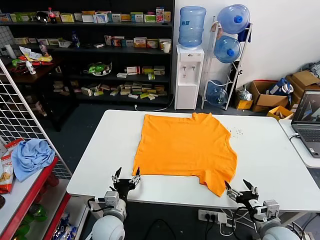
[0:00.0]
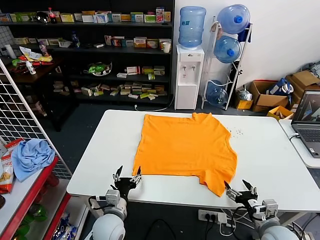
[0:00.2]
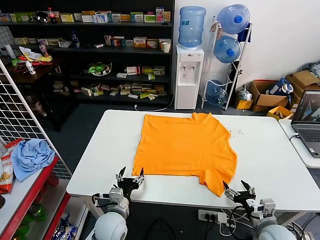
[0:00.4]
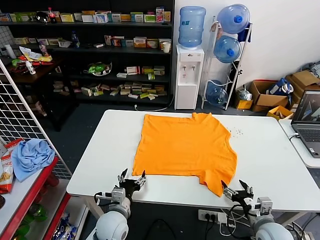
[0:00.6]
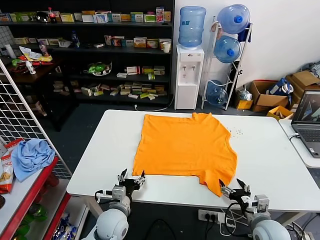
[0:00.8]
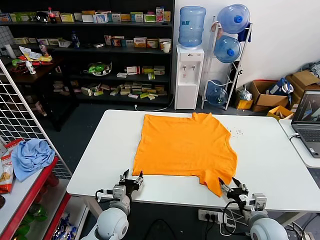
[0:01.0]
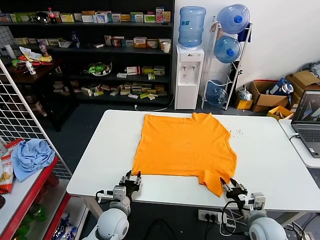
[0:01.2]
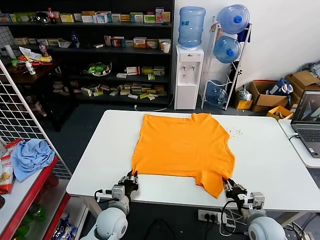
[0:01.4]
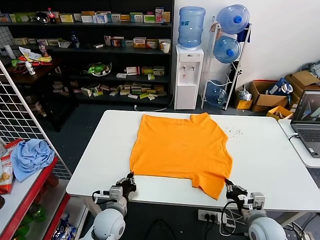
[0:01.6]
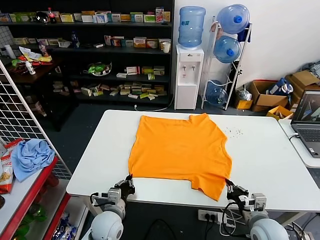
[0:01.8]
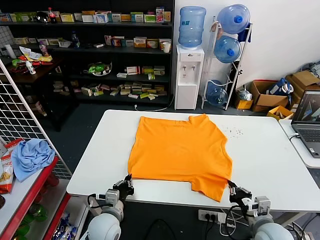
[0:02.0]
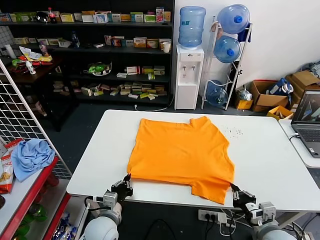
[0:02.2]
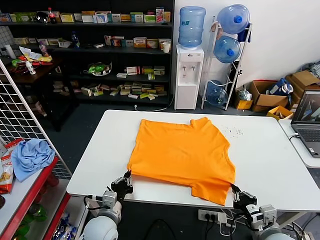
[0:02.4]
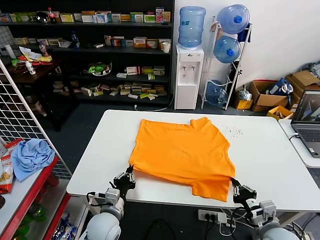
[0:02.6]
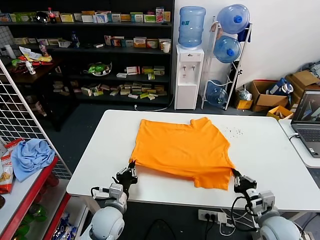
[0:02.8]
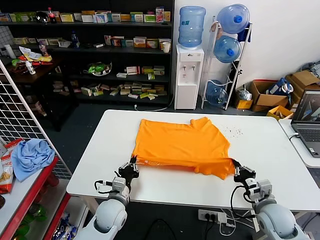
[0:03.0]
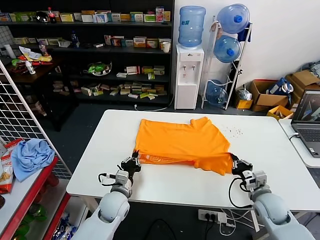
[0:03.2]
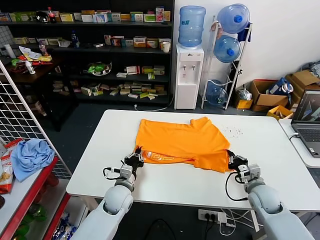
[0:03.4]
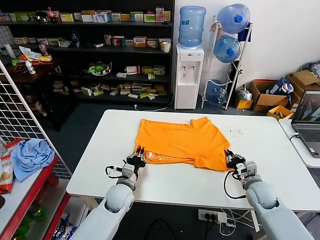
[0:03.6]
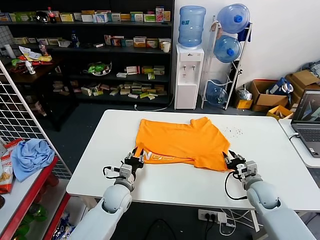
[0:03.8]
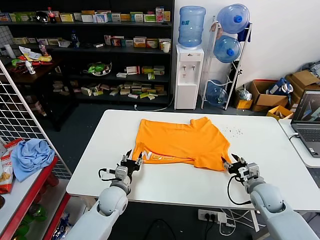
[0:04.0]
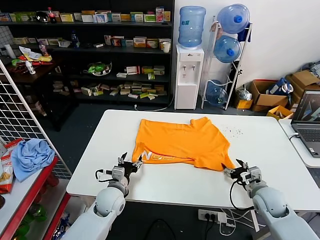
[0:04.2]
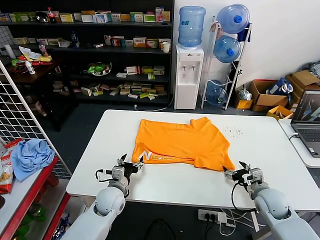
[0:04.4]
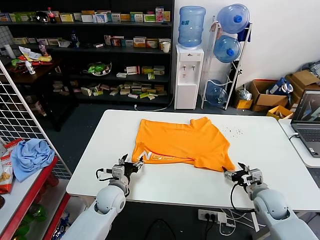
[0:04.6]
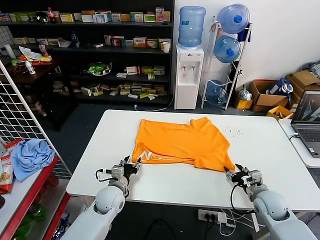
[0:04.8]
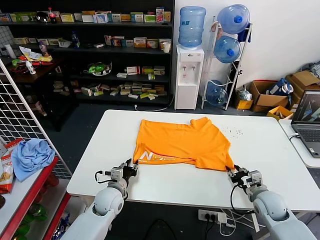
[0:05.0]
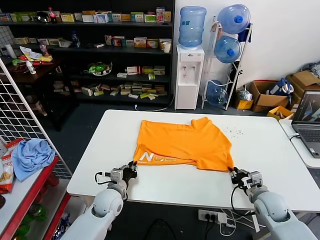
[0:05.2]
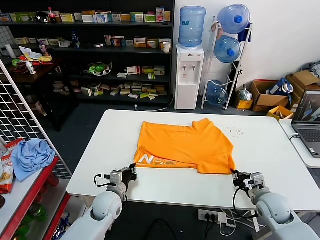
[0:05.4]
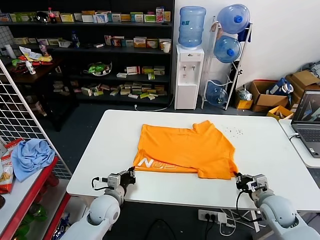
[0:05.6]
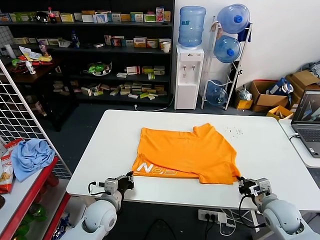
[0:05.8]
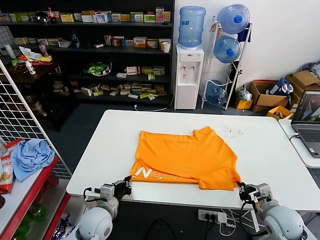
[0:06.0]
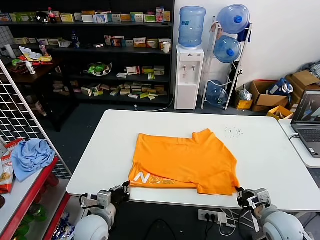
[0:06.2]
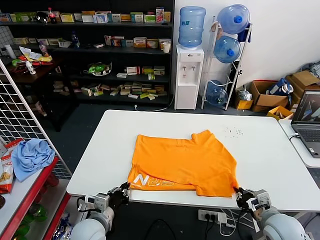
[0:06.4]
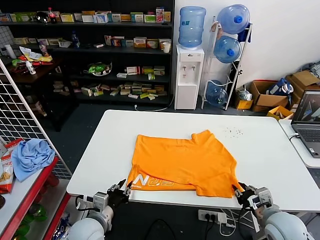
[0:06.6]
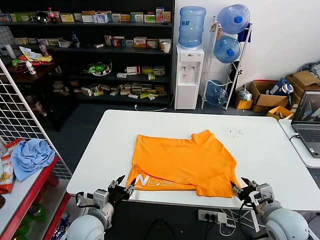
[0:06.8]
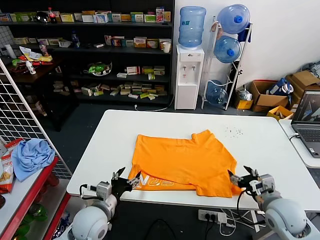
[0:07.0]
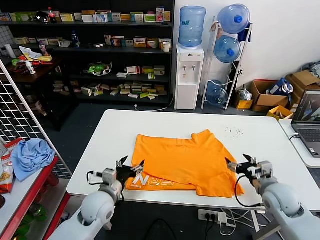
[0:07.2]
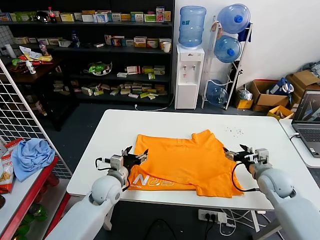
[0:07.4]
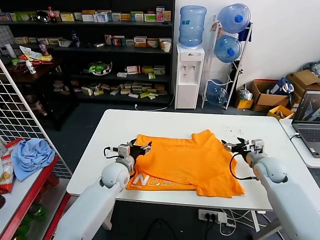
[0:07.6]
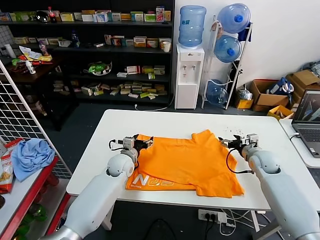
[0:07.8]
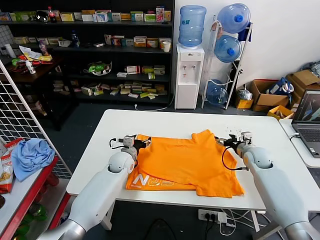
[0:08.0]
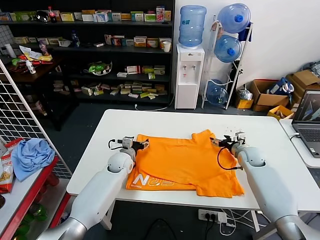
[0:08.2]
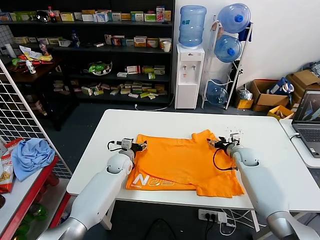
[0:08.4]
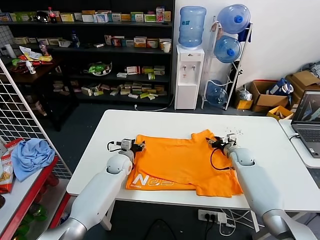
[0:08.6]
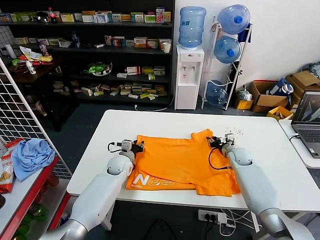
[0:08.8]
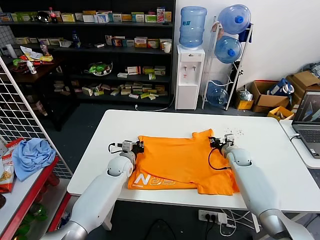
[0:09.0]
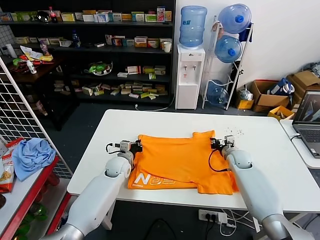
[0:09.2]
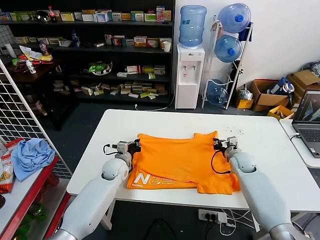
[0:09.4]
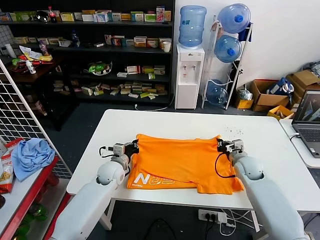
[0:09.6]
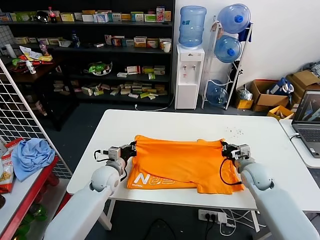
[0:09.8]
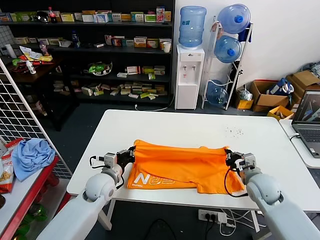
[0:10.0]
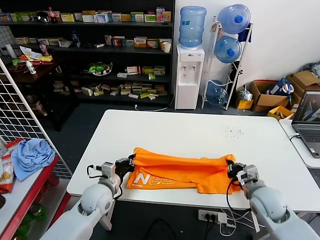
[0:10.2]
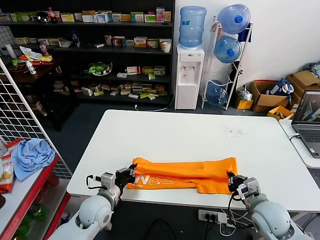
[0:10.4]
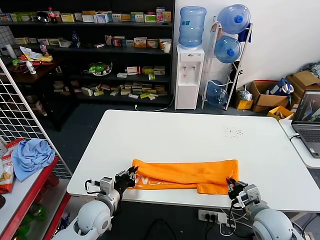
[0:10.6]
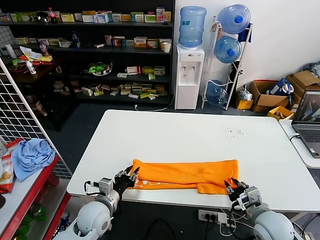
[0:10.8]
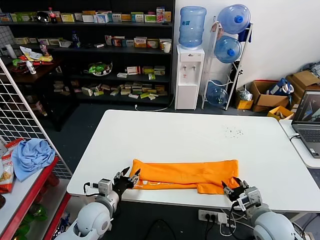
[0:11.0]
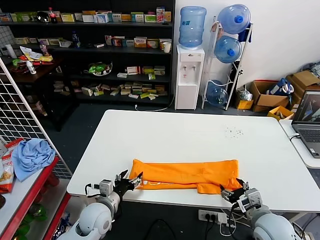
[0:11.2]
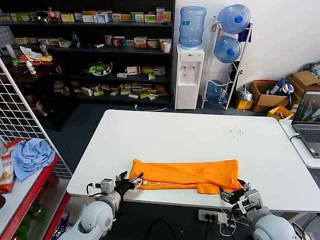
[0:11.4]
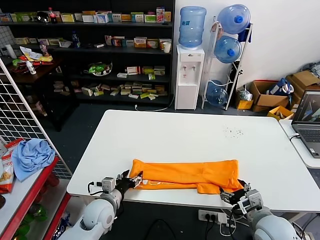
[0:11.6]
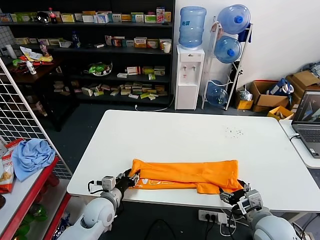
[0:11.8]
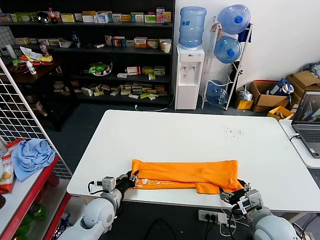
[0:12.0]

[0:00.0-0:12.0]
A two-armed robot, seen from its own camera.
Task of the whole recording: fold and organize the clothes.
Step, 0:00.0 to 0:01.8: use both grippers simultaneously to clamp the lower edge of the clothing fabric.
Step, 0:02.0 to 0:03.8: use both grippers to drag the lower edge of the fabric forward and fold it over the upper edge.
Step, 0:04.0 to 0:06.6: Drag the clothes downward with both gripper.
Step, 0:06.8 to 0:09.0: use both grippers simultaneously to clamp the upper edge of the clothing fabric.
Step, 0:09.2 to 0:11.0: use both grippers to drag the upper edge of the fabric backward and fold it over the lower edge.
0:01.6 to 0:03.0: The right gripper moves some 5 cm.
0:03.0 to 0:04.4: The right gripper opens; the left gripper opens.
0:04.4 to 0:06.0: Both grippers travel together backward, some 5 cm. The left gripper closes up. The right gripper closes up.
0:06.0 to 0:07.6: Both grippers travel together forward, roughly 15 cm. The right gripper opens. The left gripper opens up.
0:07.6 to 0:09.0: The left gripper is displaced forward and downward by roughly 10 cm, and closes up; the right gripper goes about 15 cm forward, downward and to the left, and closes its fingers.
0:09.0 to 0:10.4: The grippers both shift backward by about 20 cm.
0:10.4 to 0:12.0: The right gripper moves about 5 cm, and opens up. The left gripper opens its fingers.

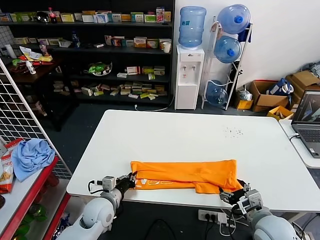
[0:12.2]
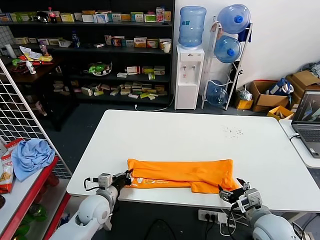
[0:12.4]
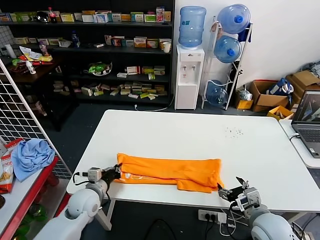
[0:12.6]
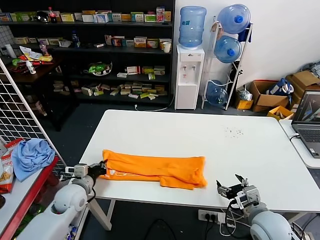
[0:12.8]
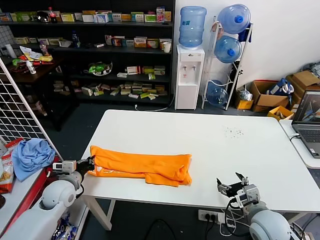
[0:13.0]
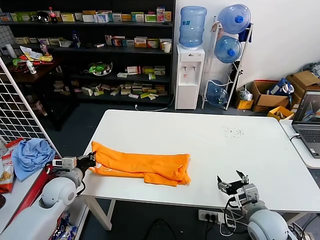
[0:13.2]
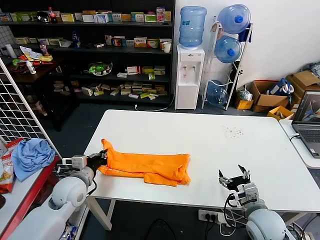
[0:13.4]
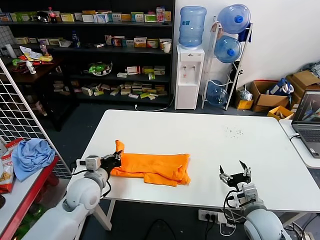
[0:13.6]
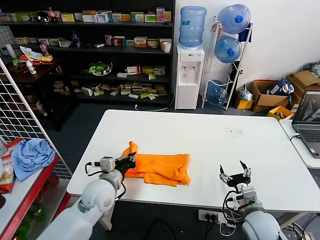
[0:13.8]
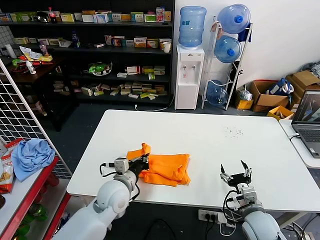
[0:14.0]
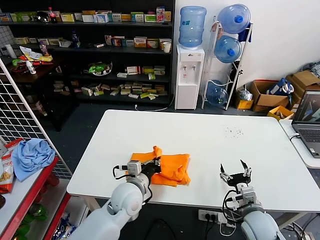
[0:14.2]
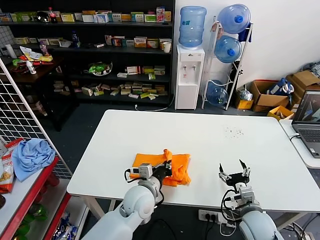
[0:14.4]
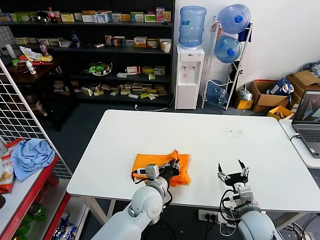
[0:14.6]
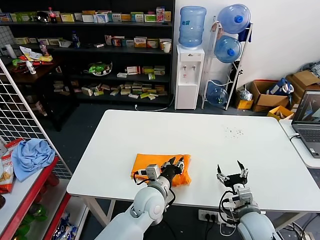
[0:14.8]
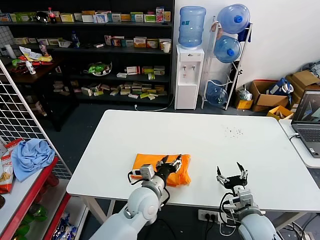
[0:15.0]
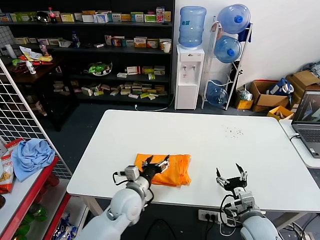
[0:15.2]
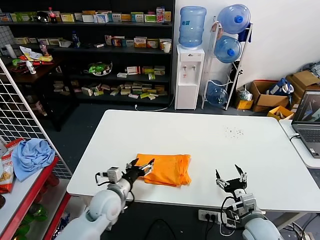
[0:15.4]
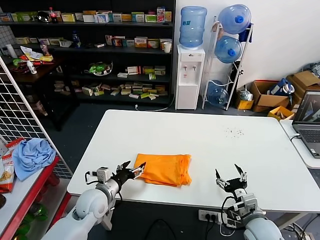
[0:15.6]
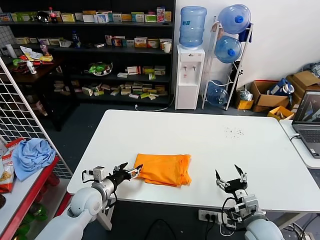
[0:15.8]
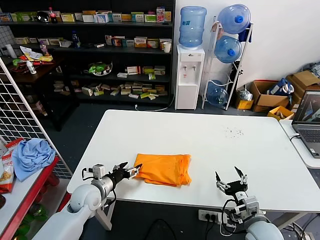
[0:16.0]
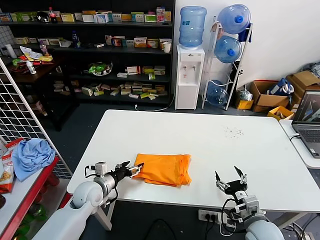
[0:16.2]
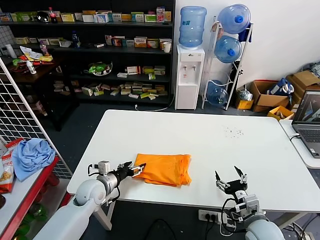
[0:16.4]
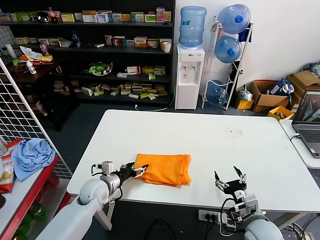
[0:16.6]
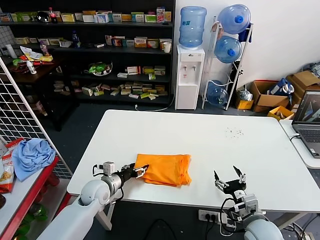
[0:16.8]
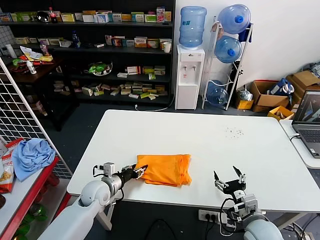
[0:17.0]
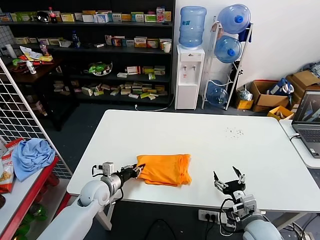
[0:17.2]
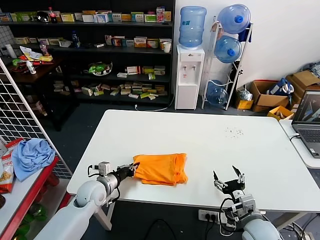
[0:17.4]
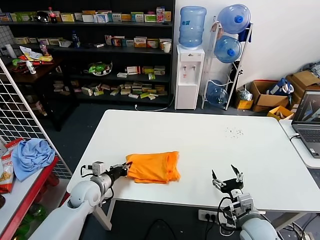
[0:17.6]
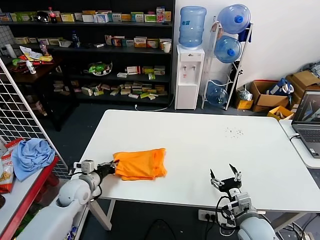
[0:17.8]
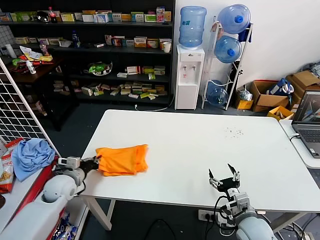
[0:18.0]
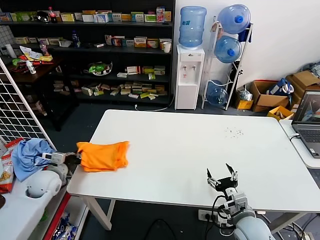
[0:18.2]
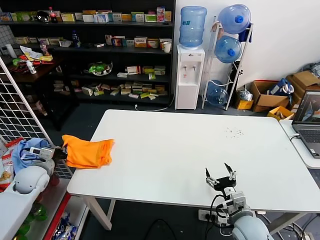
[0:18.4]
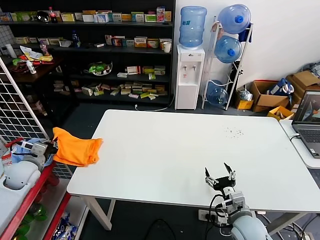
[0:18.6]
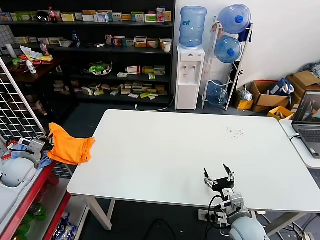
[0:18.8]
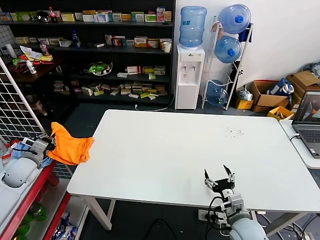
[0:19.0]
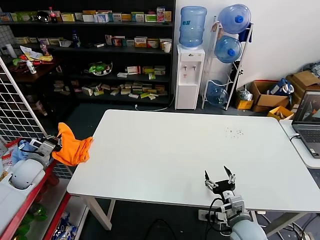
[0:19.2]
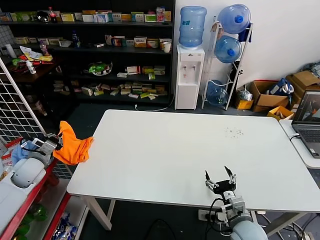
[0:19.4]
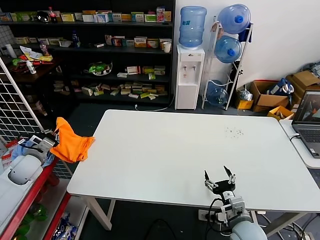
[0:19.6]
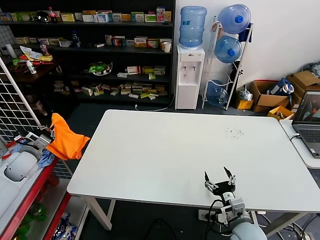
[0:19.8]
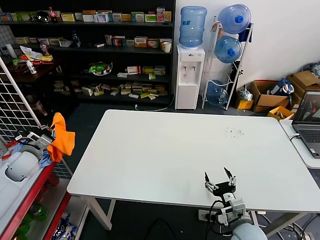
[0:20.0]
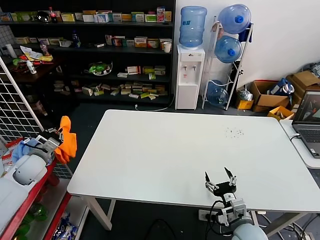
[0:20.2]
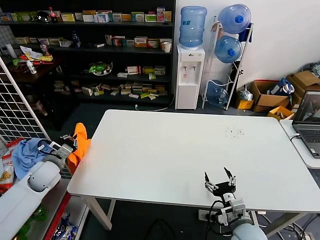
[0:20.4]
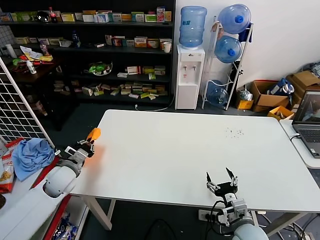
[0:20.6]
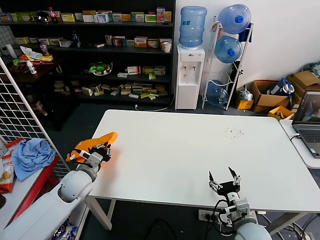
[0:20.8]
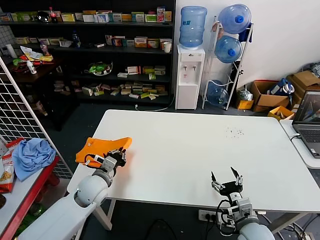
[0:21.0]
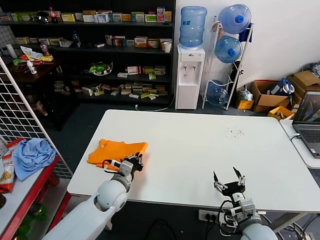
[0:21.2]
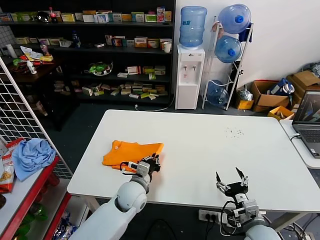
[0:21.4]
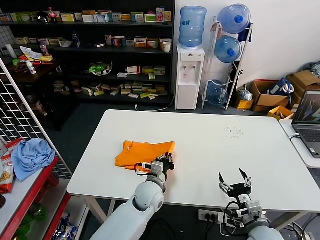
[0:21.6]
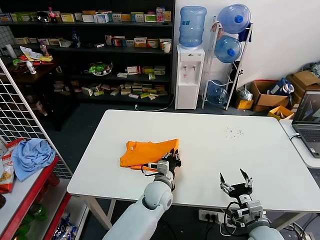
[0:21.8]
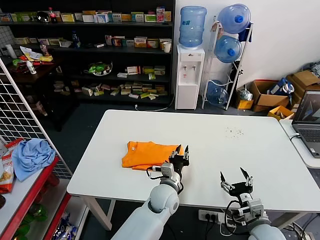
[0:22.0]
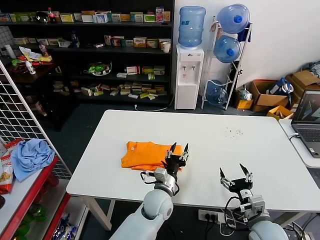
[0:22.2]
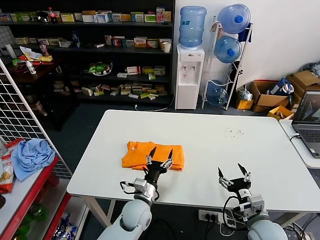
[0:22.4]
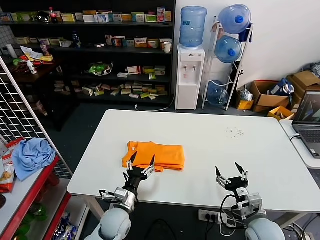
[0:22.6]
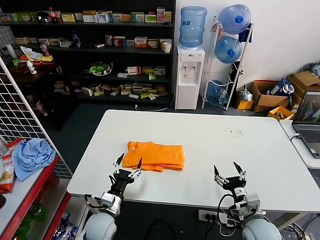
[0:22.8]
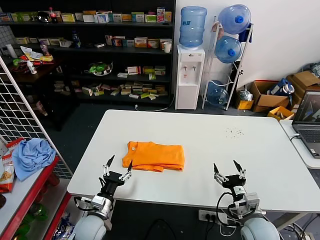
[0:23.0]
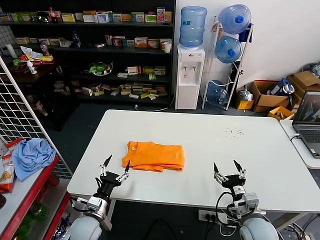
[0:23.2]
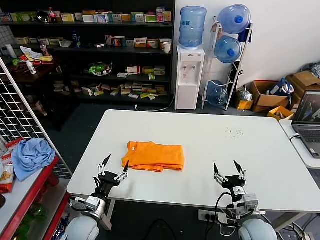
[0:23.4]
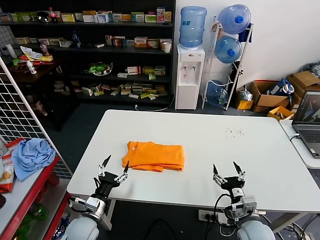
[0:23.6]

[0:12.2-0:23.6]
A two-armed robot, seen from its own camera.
Task of the whole recording: fold and organize the clothes.
Step, 0:12.4 to 0:14.8: use the left gripper to drag the left edge of the fabric to the left and folds it over the right edge.
Step, 0:15.2 to 0:22.2: Flip the folded clothes over with left gripper.
0:12.2 to 0:13.6: The left gripper moves upward, some 10 cm, and travels to the left and back again, roughly 15 cm each way.
0:13.6 to 0:15.0: The left gripper heads to the right, covering approximately 20 cm, and opens.
0:15.0 to 0:16.4: The left gripper goes some 20 cm to the left.
0:16.4 to 0:17.8: The left gripper closes its fingers.
0:17.8 to 0:19.4: The left gripper is displaced to the left and upward by roughly 20 cm.
0:19.4 to 0:20.8: The left gripper heads to the right, covering approximately 15 cm.
0:20.8 to 0:22.2: The left gripper travels to the right by about 30 cm, and opens its fingers.
0:22.2 to 0:23.6: The left gripper travels to the left by approximately 25 cm, and opens up.
